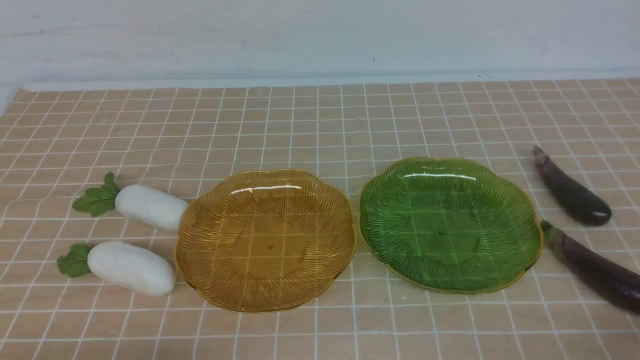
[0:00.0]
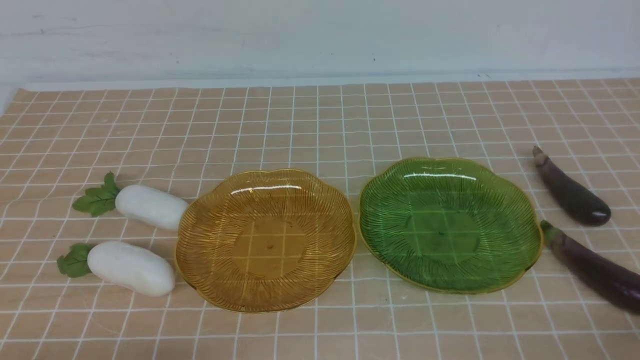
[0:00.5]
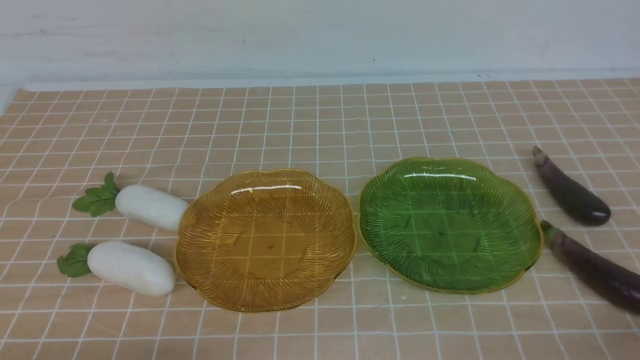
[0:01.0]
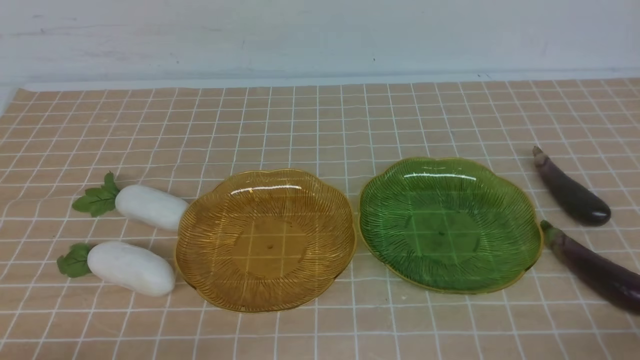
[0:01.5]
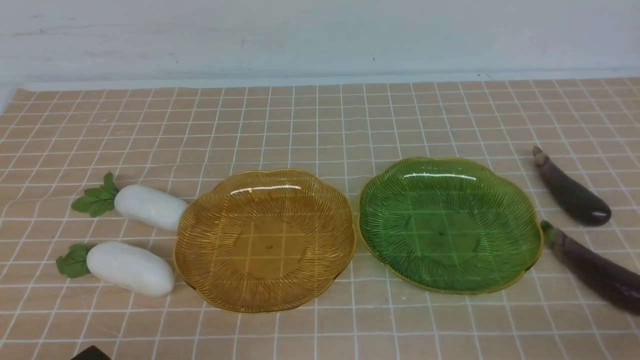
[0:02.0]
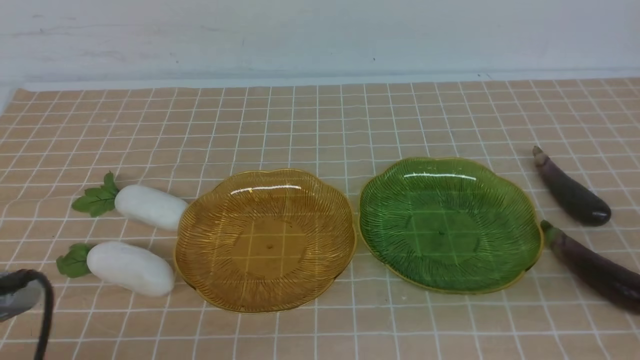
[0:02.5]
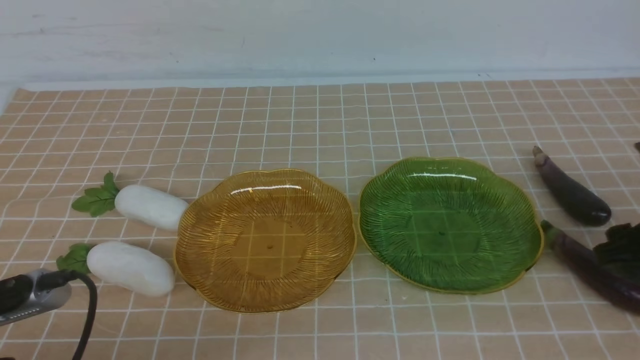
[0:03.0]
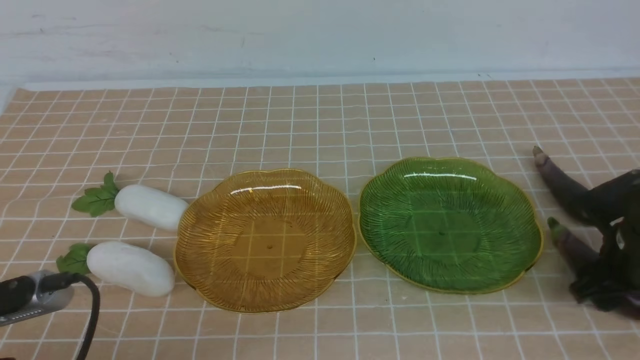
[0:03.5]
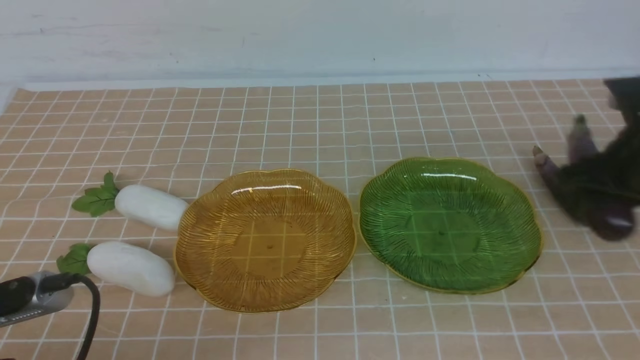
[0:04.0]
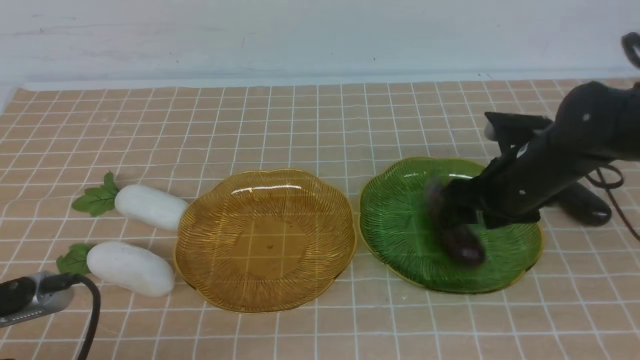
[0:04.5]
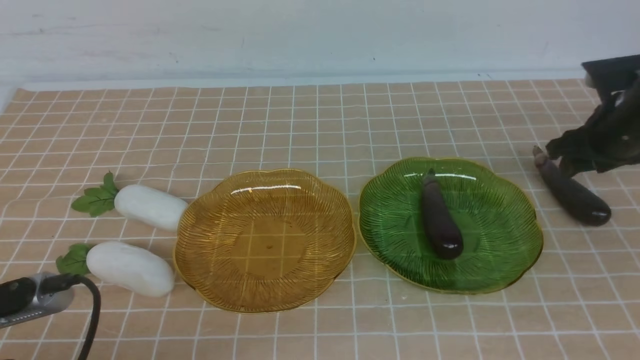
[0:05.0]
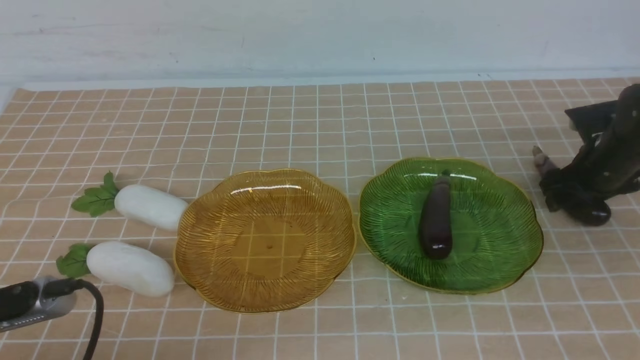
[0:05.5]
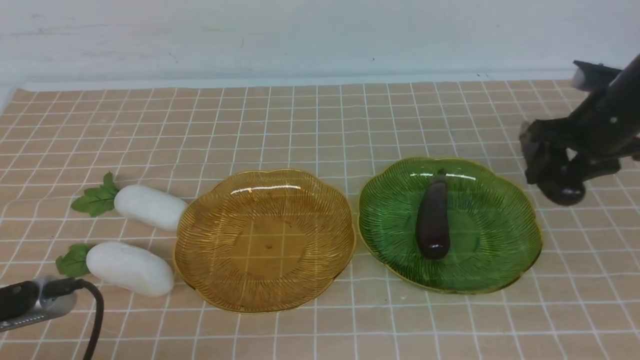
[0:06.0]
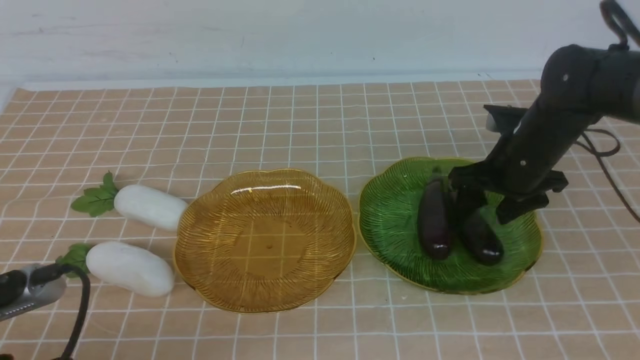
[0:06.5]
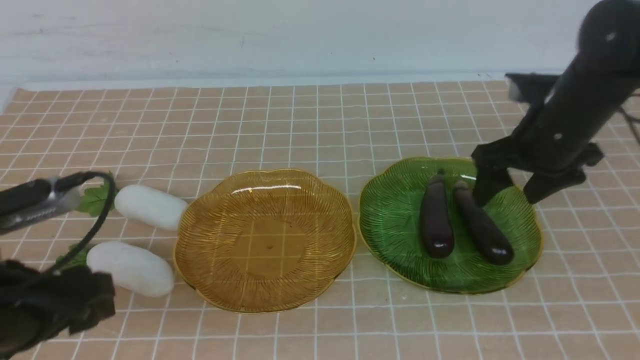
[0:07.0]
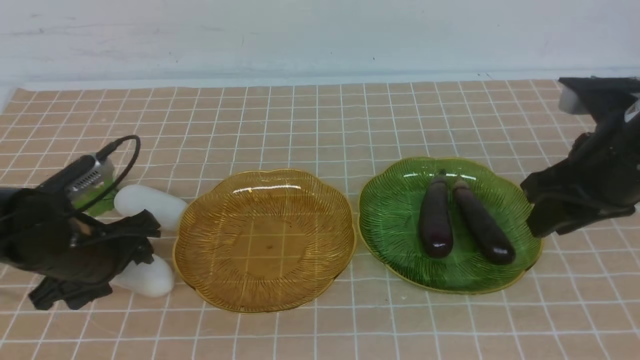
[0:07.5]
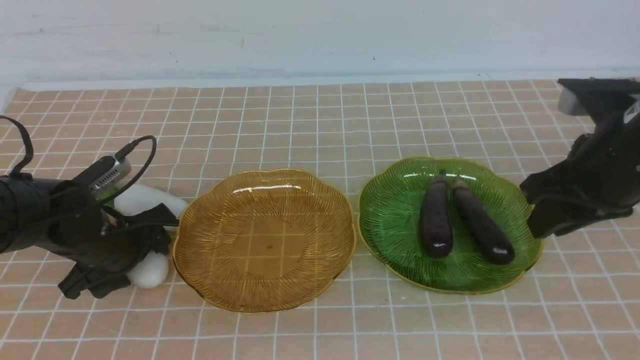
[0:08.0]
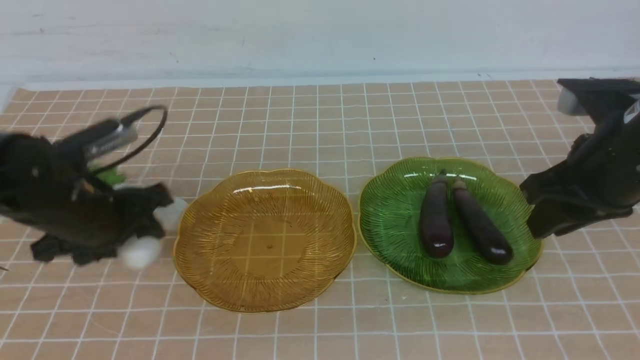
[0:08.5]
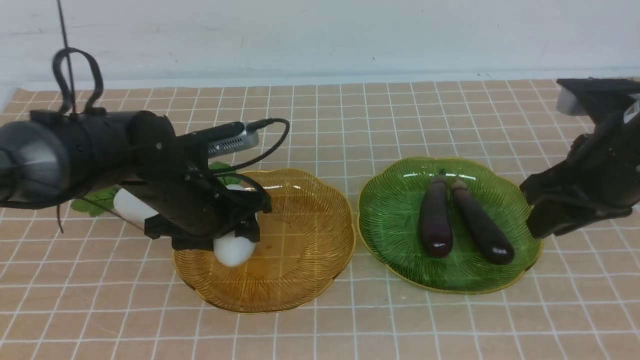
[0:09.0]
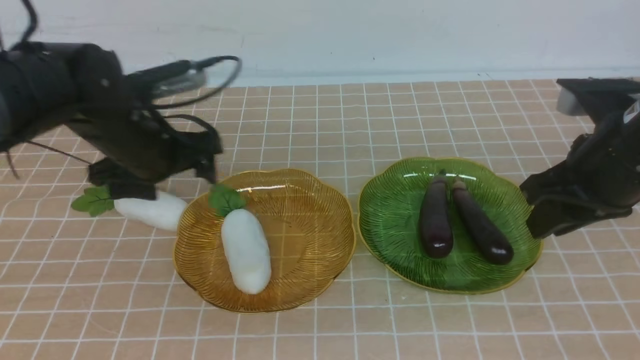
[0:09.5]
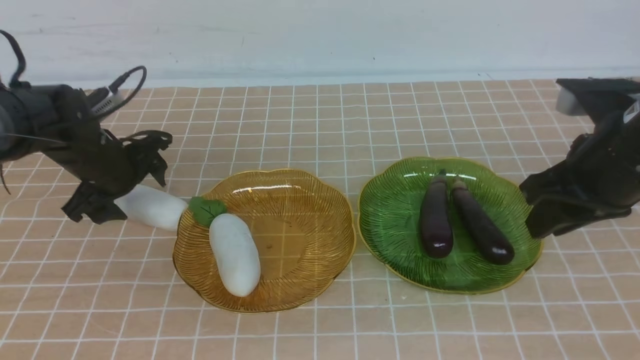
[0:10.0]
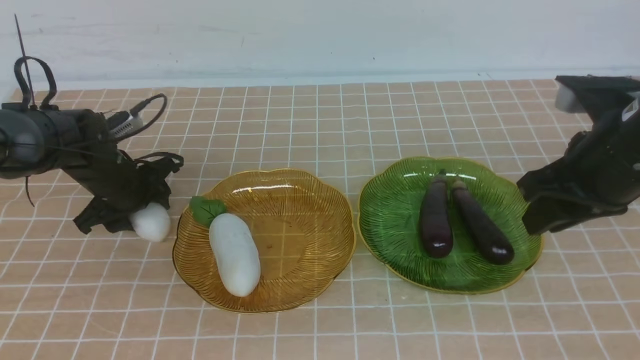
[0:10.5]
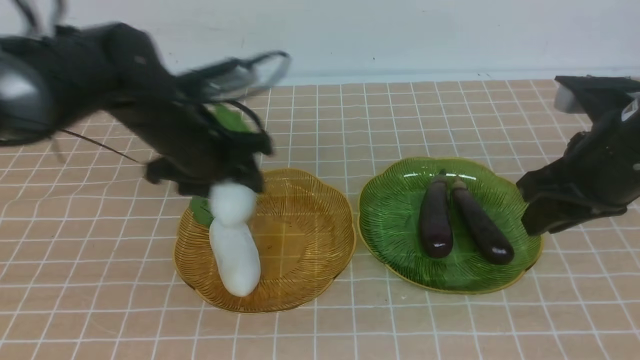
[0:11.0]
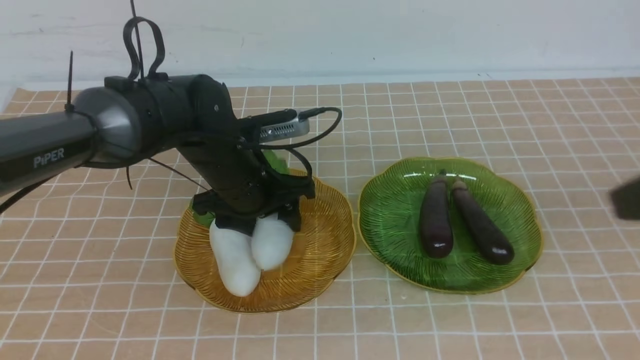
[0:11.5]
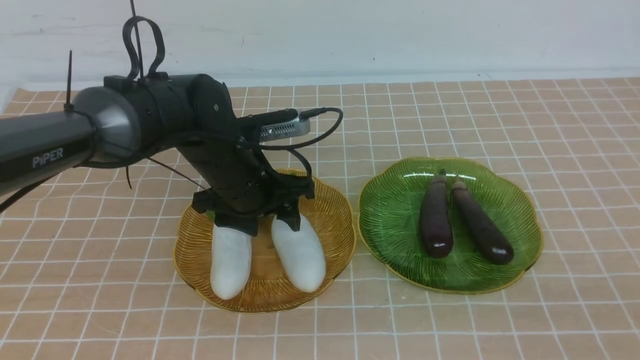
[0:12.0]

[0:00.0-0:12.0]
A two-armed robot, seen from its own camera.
Step, 0:00.0 to 0:04.5: use the right arm to grab an eggplant and put it into the right plate.
Step, 0:05.0 to 0:06.5: use the right arm to grab an eggplant and put it into the right plate.
Step, 0:07.0 to 0:09.0: use the left arm to grab a radish and put it into the left plate.
Step, 0:09.5 to 0:11.5: use the left arm to grab a radish and put it into the left plate.
0:02.0 to 0:04.0: The left gripper opens. The right gripper heads forward, covering some 30 cm, and opens up.
0:04.0 to 0:06.0: The right gripper heads to the right and forward, covering about 10 cm.
0:06.0 to 0:08.0: The left gripper goes some 20 cm forward, and opens its fingers; the right gripper heads backward and upward, covering about 15 cm.
0:08.0 to 0:10.0: The left gripper goes approximately 10 cm forward, and reaches roughly 10 cm to the right, then returns.
0:10.0 to 0:12.0: The left gripper moves to the right, roughly 15 cm, and closes up, while the right gripper moves backward, roughly 25 cm.

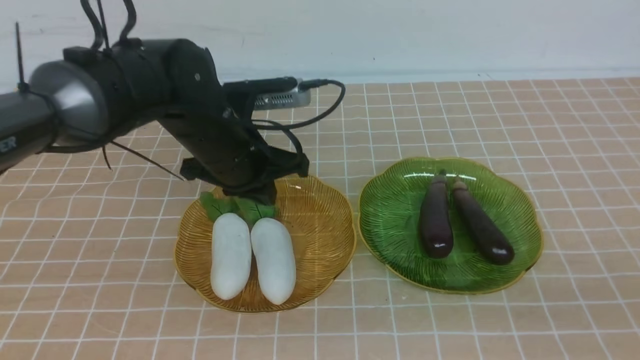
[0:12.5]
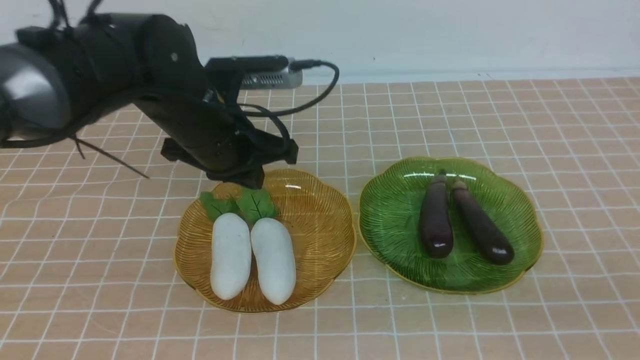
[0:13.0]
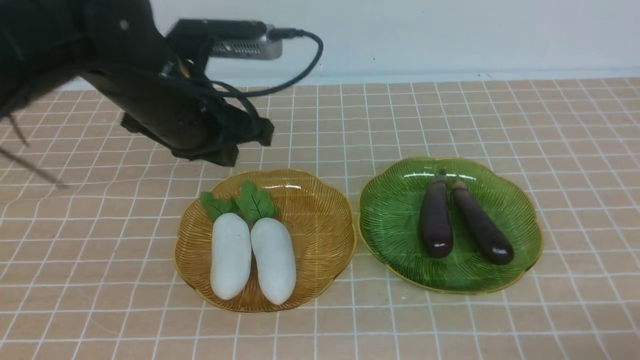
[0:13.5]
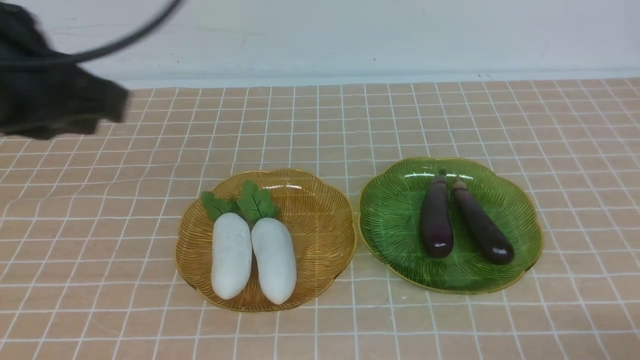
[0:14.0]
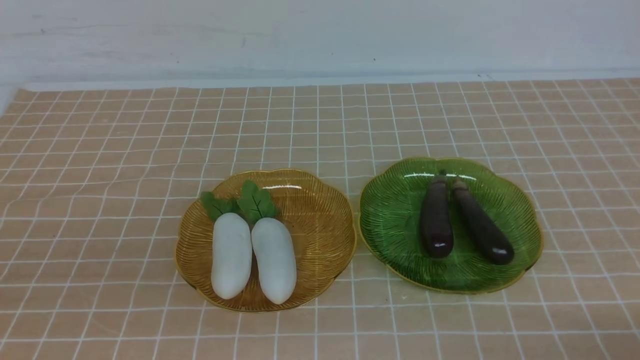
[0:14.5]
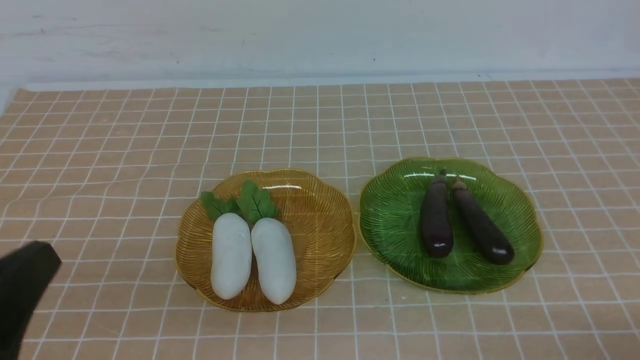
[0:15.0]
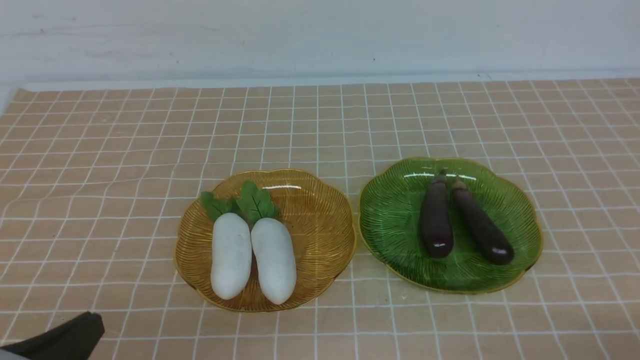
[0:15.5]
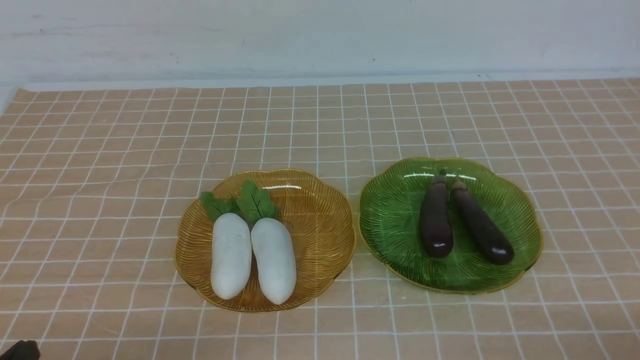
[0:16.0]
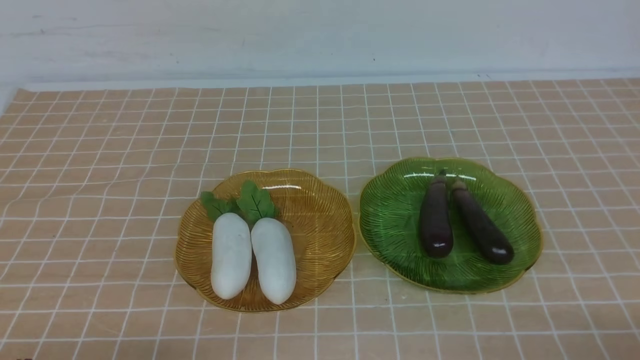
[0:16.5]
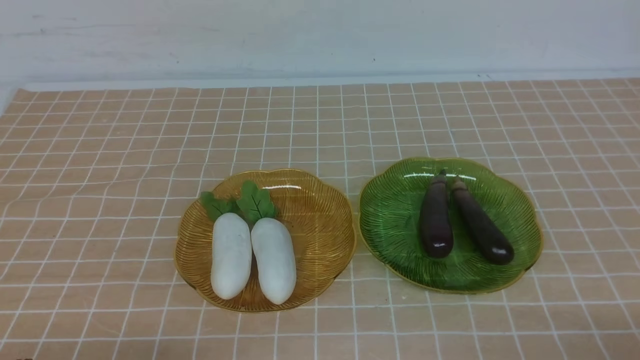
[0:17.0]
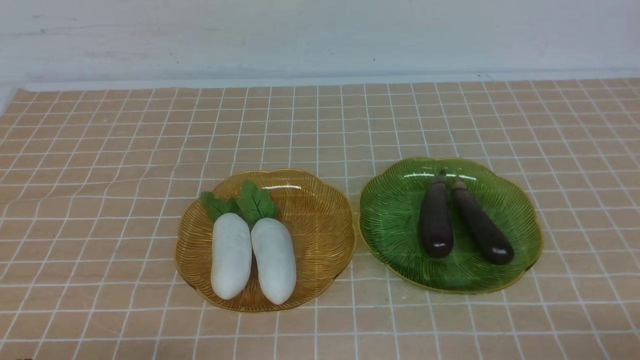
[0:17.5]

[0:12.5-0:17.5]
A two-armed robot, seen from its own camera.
0:12.5 to 0:15.0: The left gripper shifts roughly 30 cm backward and to the left. The right gripper shifts some 15 cm downward.
0:15.0 to 0:17.5: The left gripper shifts roughly 10 cm downward.
